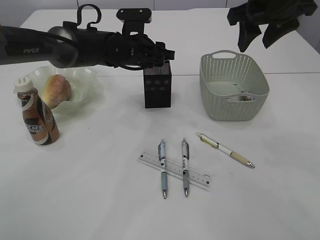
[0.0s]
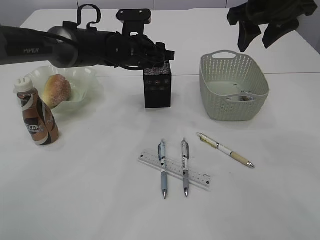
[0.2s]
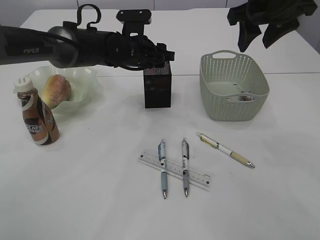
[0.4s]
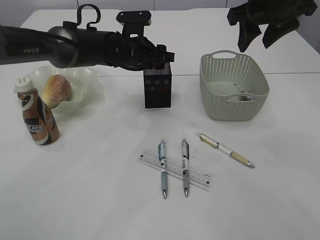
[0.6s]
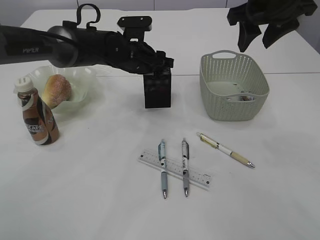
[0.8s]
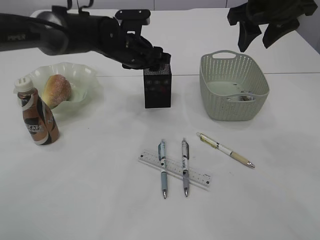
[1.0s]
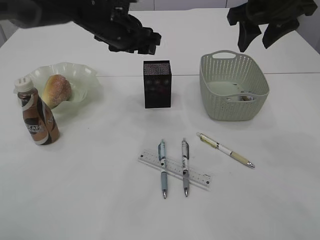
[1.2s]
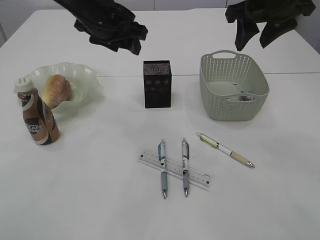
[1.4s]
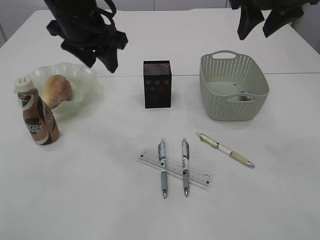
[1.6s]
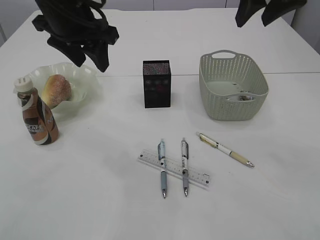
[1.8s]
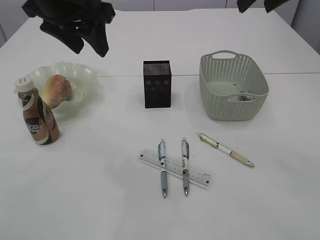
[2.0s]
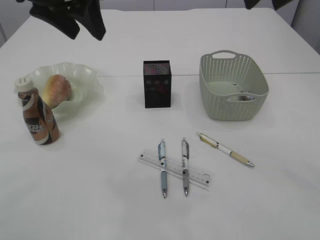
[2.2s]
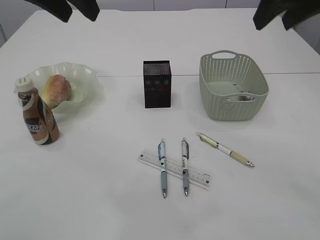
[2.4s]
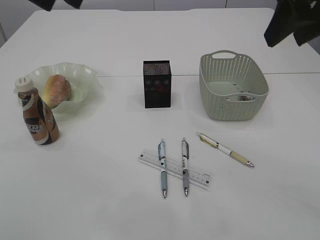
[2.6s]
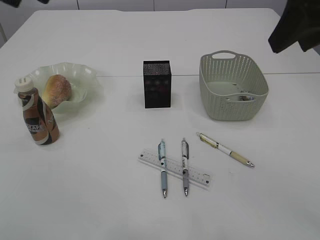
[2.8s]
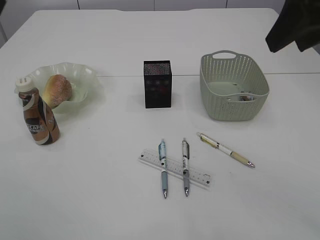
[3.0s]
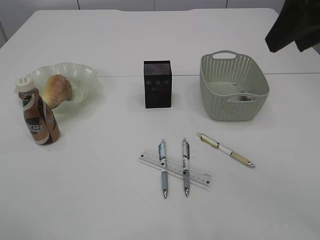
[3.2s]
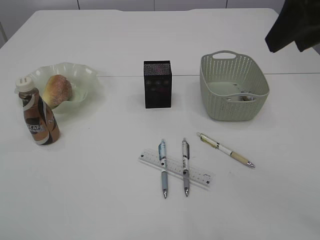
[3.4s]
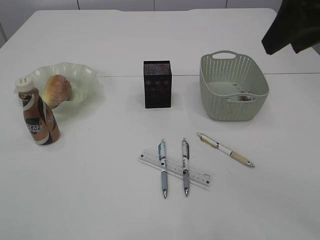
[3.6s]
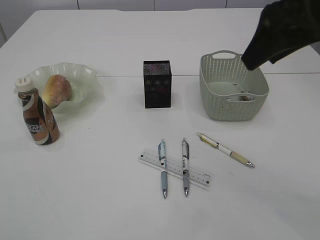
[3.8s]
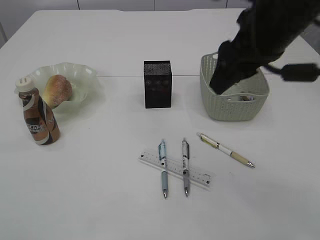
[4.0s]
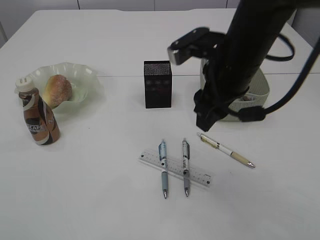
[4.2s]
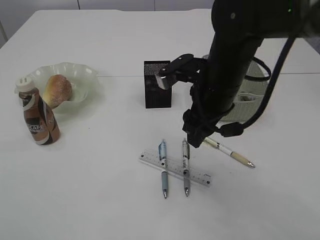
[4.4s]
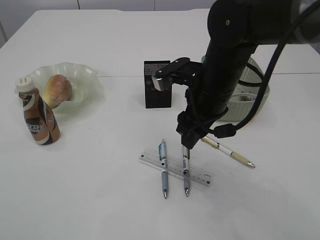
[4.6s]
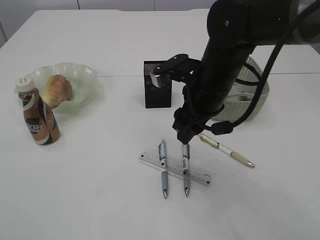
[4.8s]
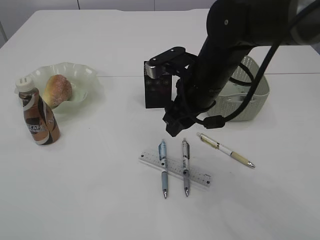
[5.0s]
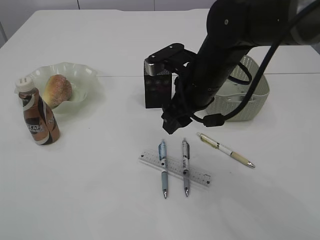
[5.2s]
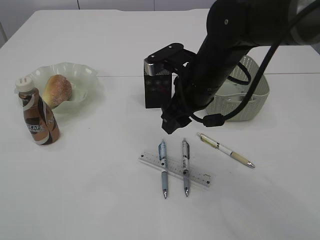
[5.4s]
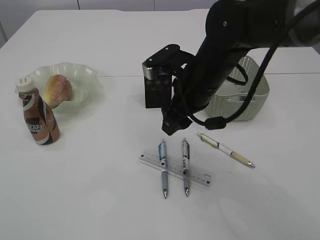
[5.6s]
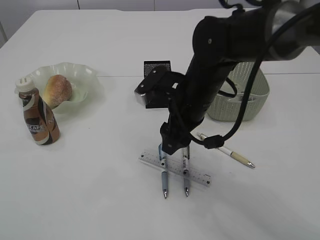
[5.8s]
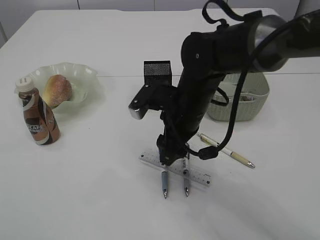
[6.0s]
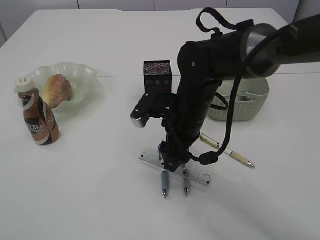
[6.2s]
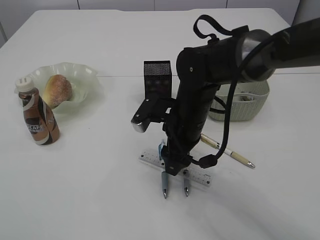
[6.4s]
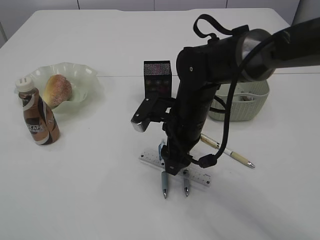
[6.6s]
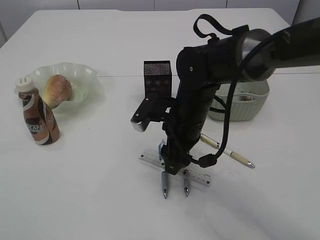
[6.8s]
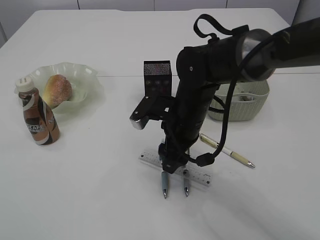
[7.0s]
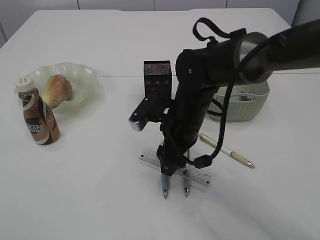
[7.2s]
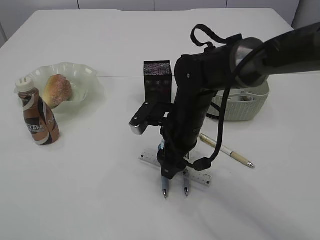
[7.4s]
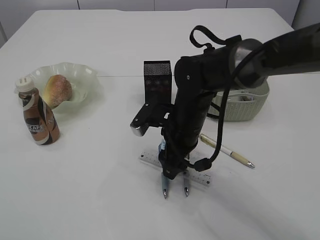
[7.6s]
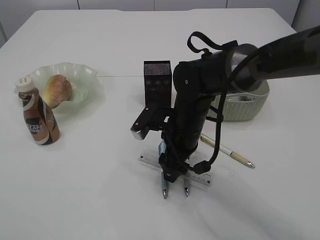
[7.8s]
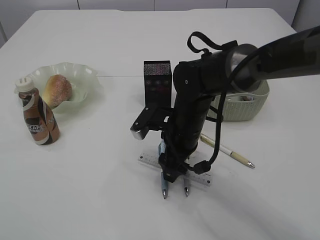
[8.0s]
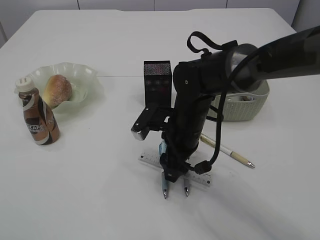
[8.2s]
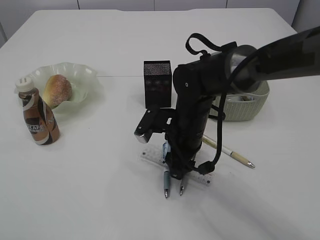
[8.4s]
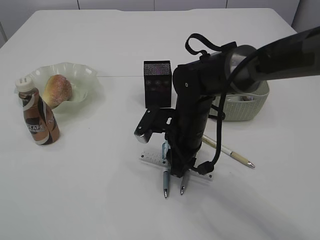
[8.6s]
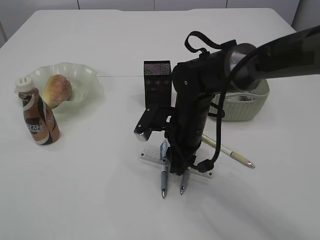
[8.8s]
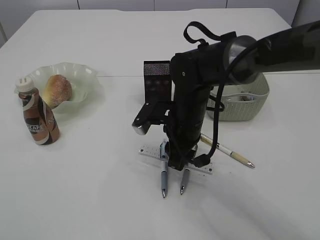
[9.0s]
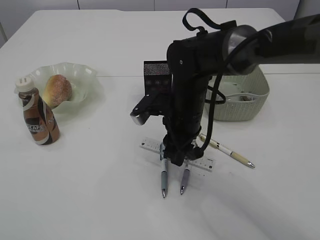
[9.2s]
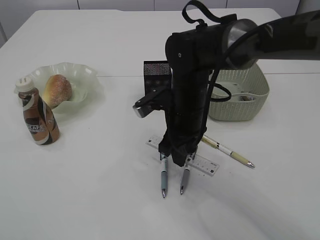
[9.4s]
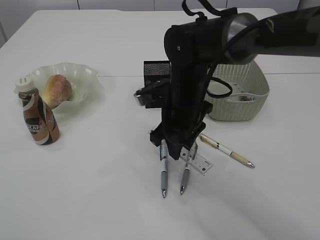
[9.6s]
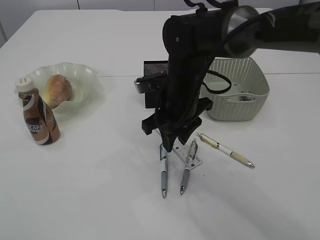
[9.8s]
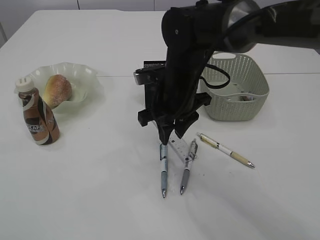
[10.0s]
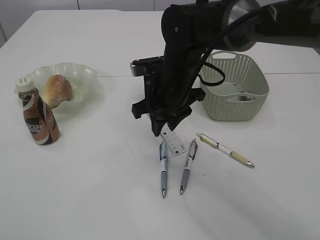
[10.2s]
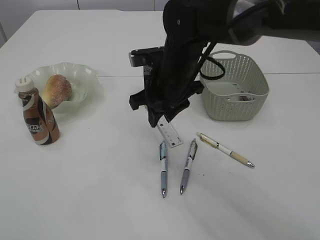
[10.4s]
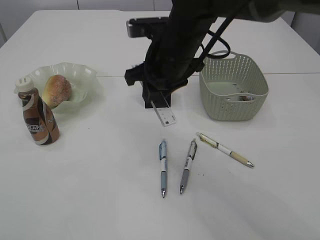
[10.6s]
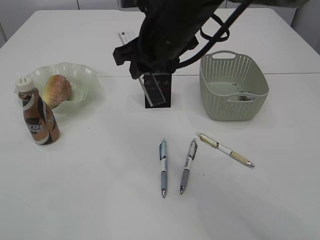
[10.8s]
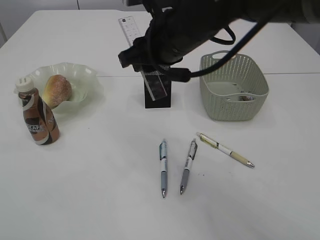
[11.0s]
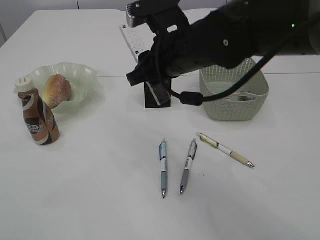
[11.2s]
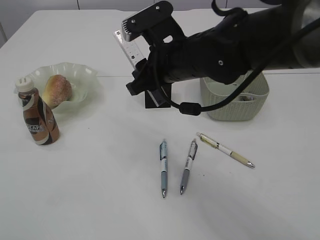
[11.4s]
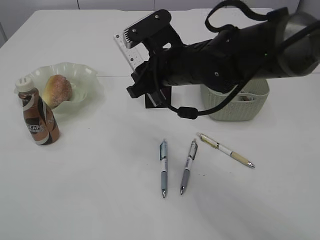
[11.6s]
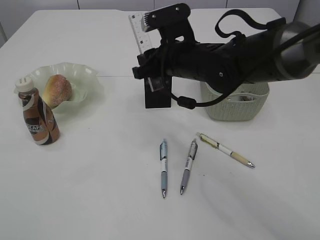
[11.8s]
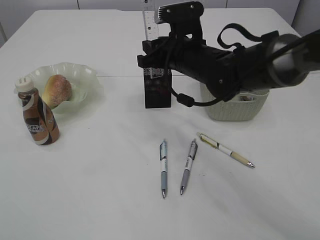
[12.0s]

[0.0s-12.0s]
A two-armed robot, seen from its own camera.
Step, 1.2s to 9.8s: pick up the ruler.
0.0s to 1.6s: The left gripper shifts some 15 cm upward, backward and to the left.
1.6s to 3.0s: The left gripper shifts approximately 25 cm backward, upward and to the left; the right gripper heads backward, covering roughly 15 cm.
3.0s to 4.4s: The right gripper heads downward, to the left and forward, covering roughly 20 cm, while the left gripper heads backward, covering some 10 cm.
4.4s to 6.0s: The right gripper goes roughly 5 cm downward.
6.0s to 7.6s: There are only small adjustments of the grippers.
7.6s to 9.0s: The right gripper closes up.
9.0s to 10.4s: The right gripper shifts some 5 cm upward.
10.4s to 12.0s: The right gripper travels upward and back again, about 10 cm each way.

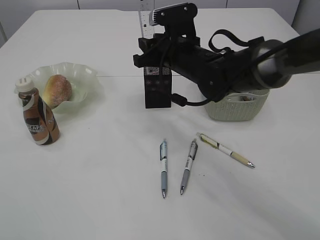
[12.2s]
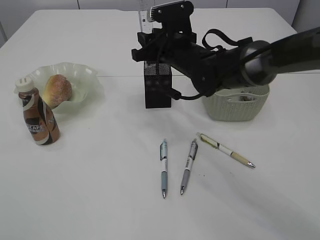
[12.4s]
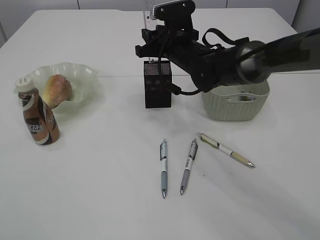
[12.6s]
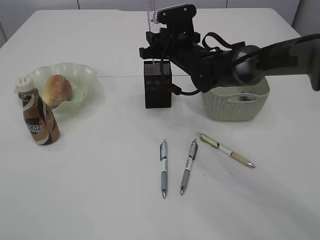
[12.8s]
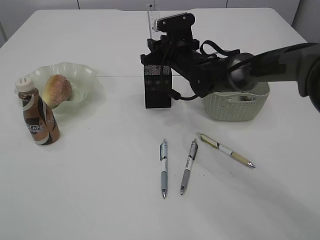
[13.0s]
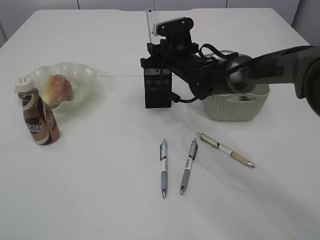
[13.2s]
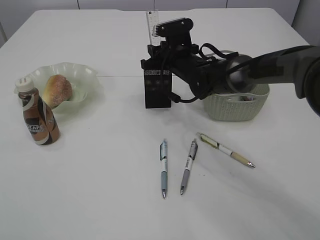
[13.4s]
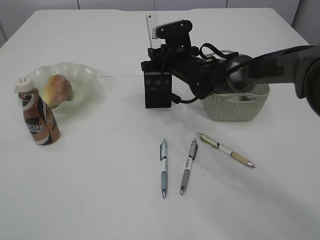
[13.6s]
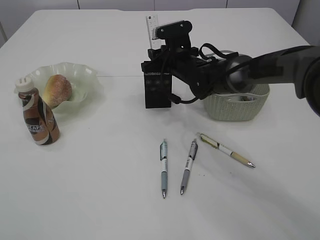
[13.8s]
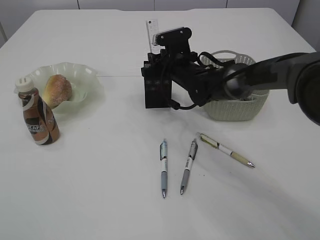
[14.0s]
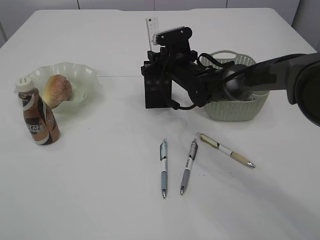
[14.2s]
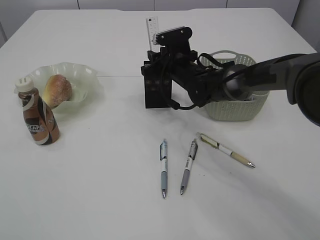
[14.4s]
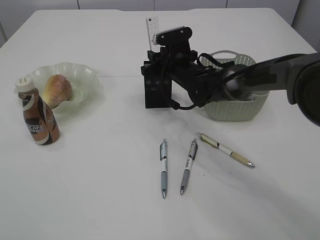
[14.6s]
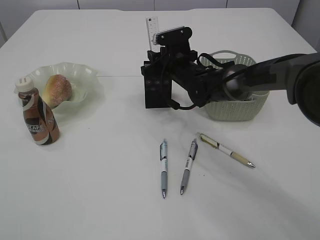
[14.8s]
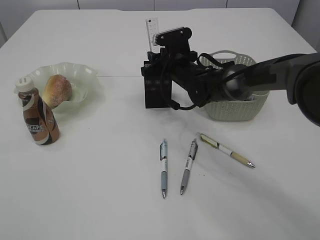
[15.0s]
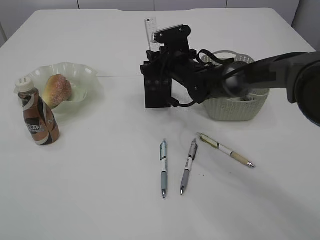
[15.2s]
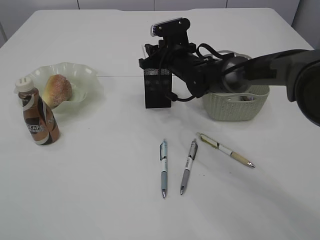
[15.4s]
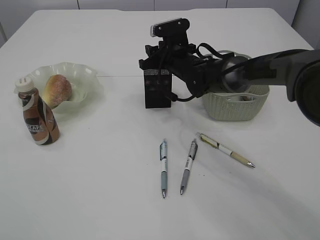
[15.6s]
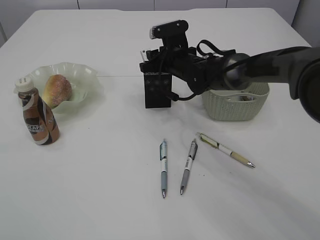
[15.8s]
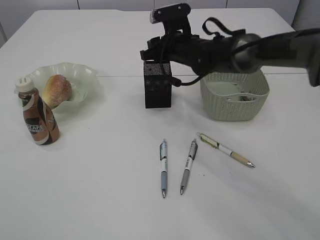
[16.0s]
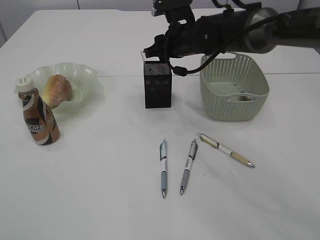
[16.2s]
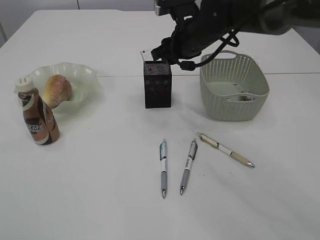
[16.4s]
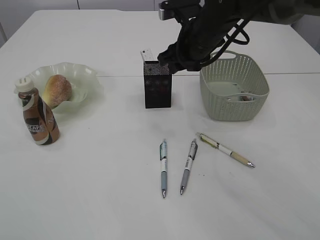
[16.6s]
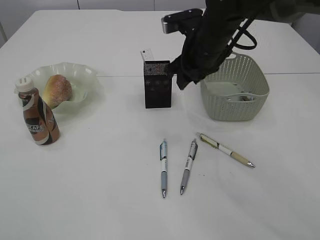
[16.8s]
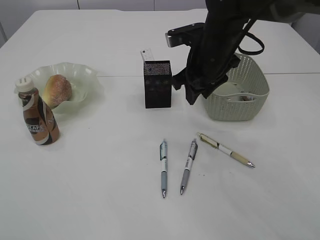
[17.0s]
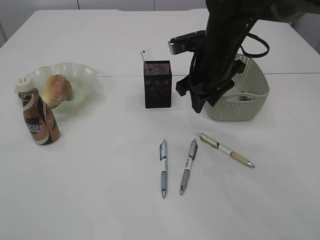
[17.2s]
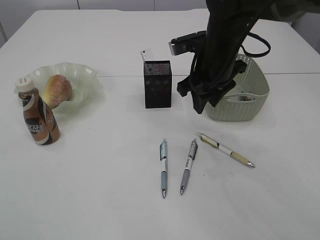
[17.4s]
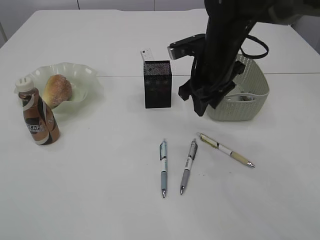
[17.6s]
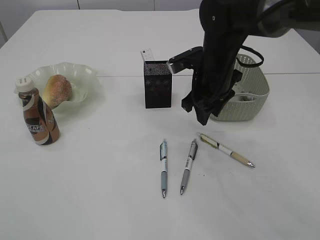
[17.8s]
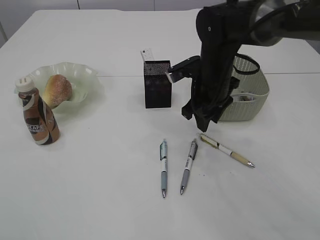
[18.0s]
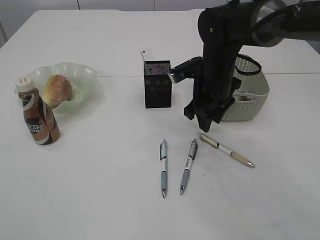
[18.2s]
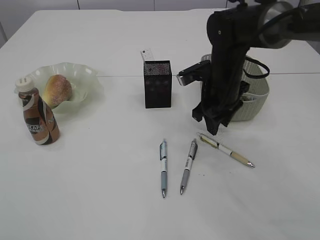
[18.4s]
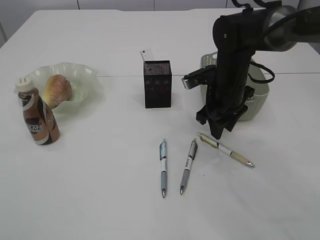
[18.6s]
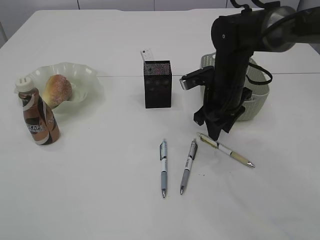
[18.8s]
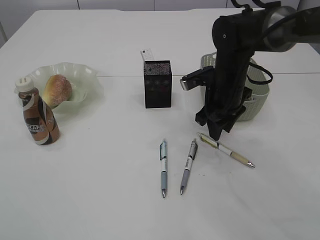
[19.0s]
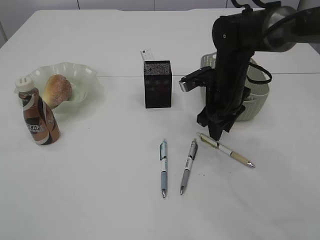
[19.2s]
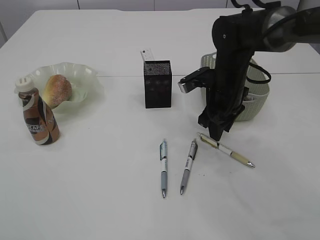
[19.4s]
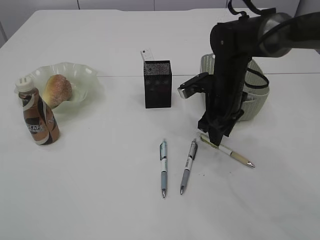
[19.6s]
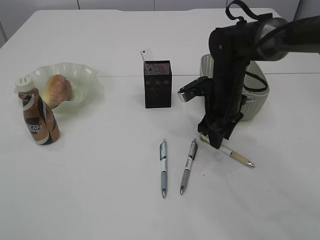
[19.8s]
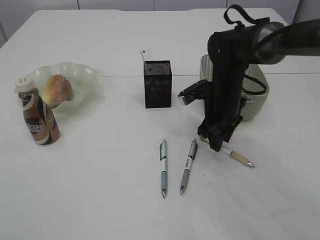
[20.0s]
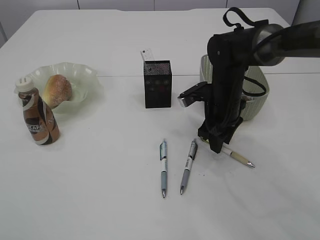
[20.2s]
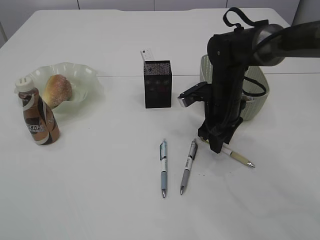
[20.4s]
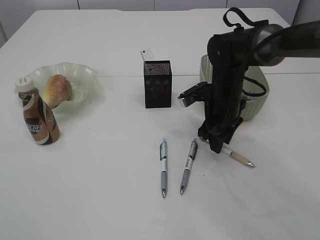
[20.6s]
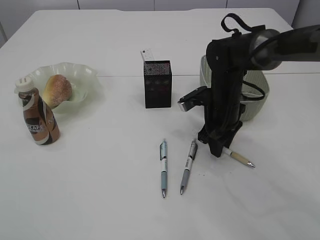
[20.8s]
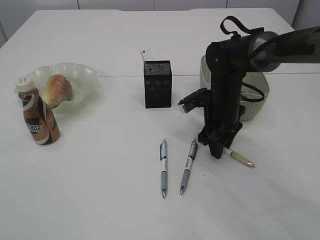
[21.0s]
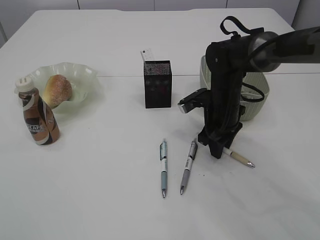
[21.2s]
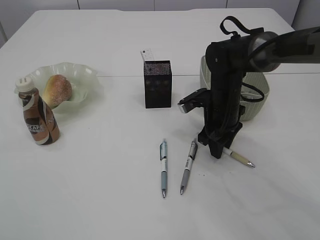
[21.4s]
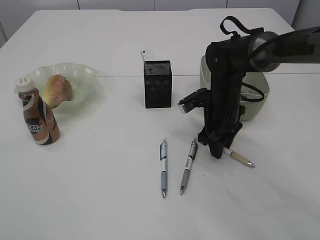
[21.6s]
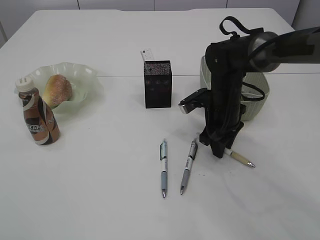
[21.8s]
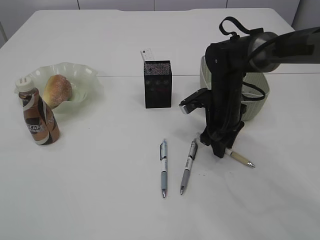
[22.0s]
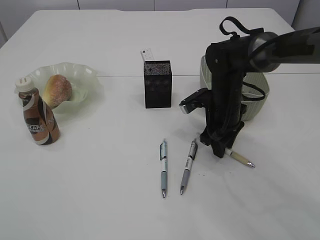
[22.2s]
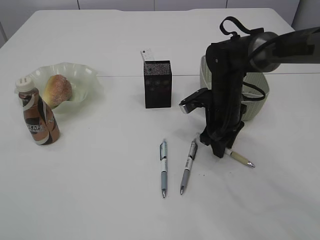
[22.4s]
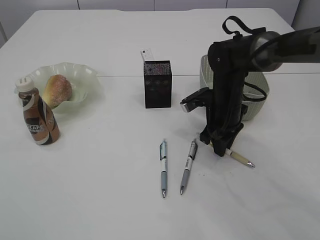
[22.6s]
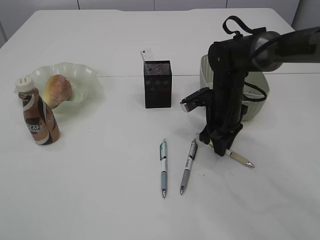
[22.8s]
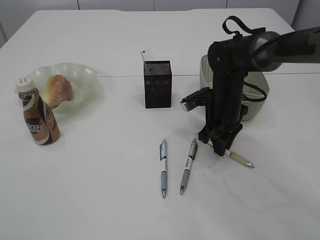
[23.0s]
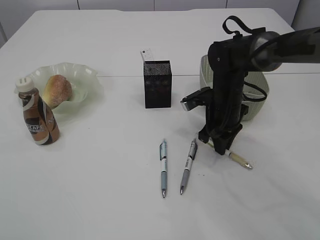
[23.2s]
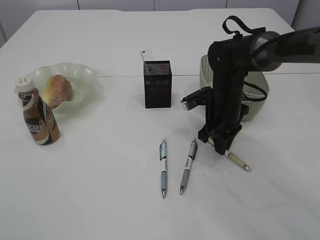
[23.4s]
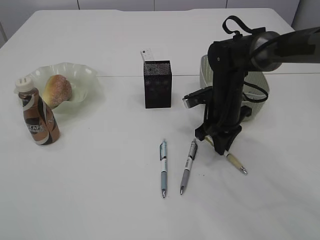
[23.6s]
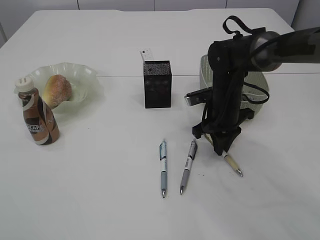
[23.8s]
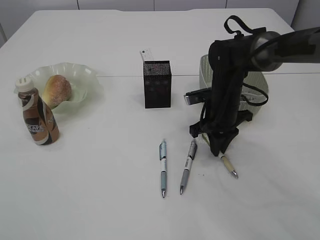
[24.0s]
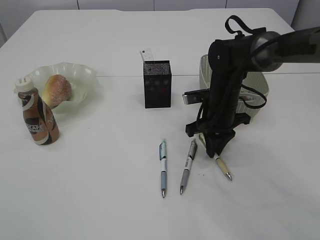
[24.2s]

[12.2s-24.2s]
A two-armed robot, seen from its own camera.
Step, 12.2s to 16.6s: Place the ruler into the pen holder.
12.2s to 13.8s: The right gripper is displaced forward and downward by roughly 10 cm.
13.8s to 15.2s: The grippers stay close to where they were, moving slightly.
15.2s to 16.6s: The right gripper is displaced upward and backward by roughly 10 cm.
16.6s to 18.2s: The right gripper goes roughly 5 cm downward.
18.2s to 19.8s: The grippers make only small movements.
19.8s to 21.2s: There are only small adjustments of the grippers.
21.2s to 22.6s: Both grippers stay about where they are.
